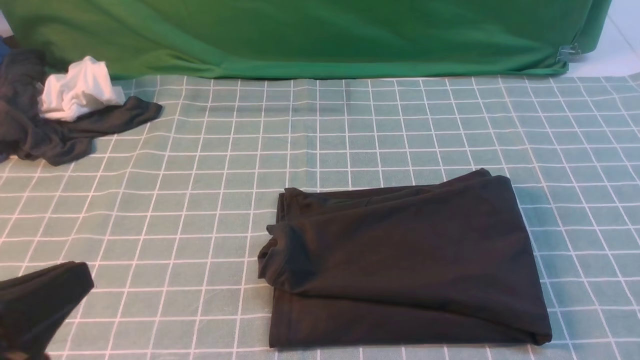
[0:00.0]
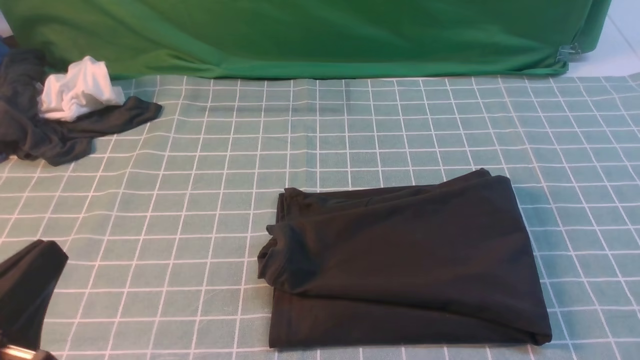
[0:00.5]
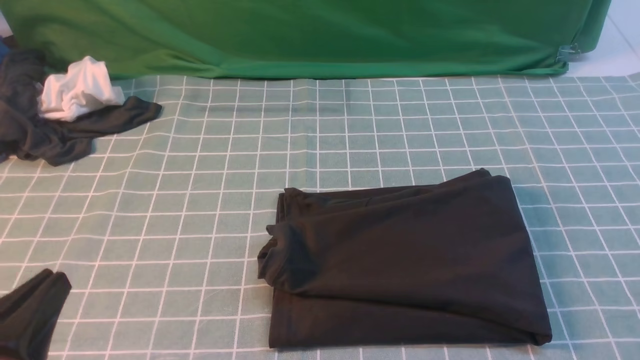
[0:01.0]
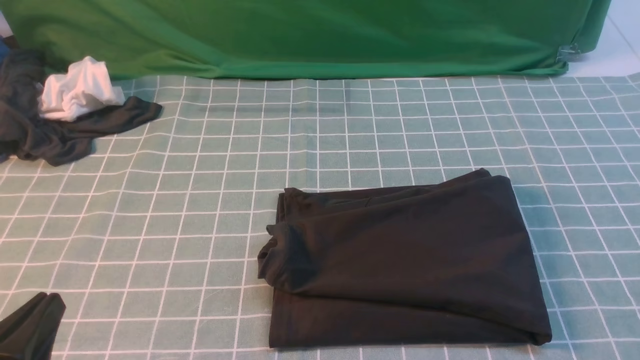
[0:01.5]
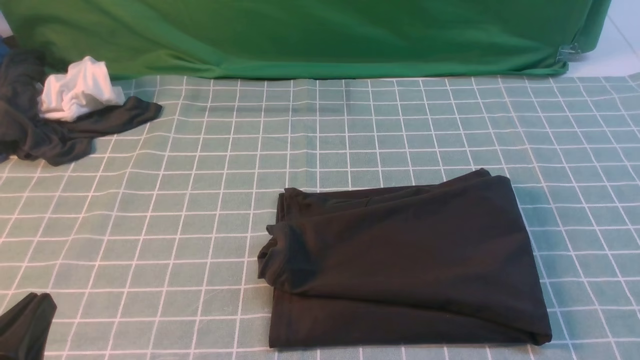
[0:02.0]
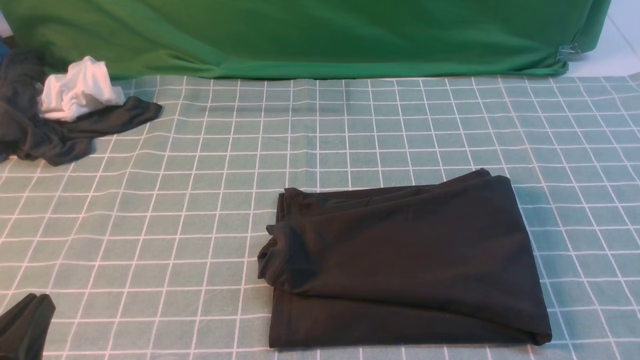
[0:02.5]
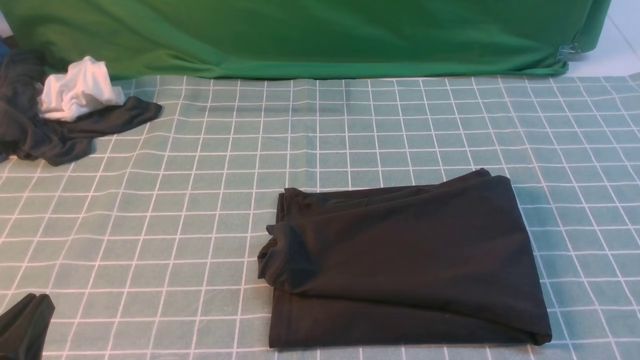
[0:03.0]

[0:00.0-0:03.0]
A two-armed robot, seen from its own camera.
0:00.0 to 0:01.5: The left gripper shifts about 10 cm downward.
0:01.5 to 0:03.0: The two grippers keep their place.
